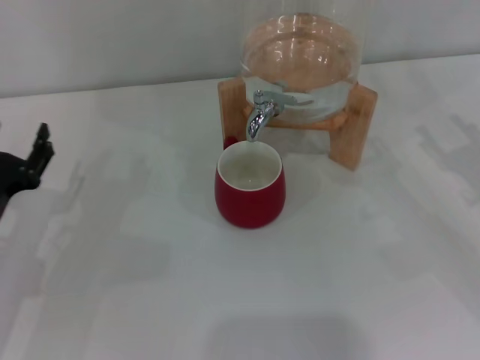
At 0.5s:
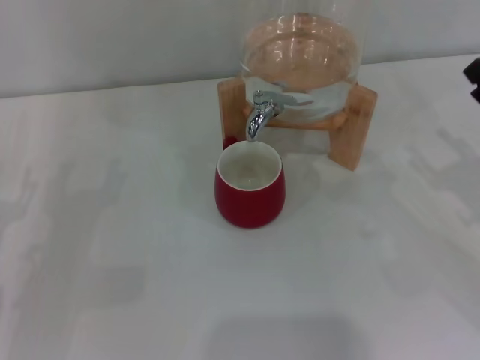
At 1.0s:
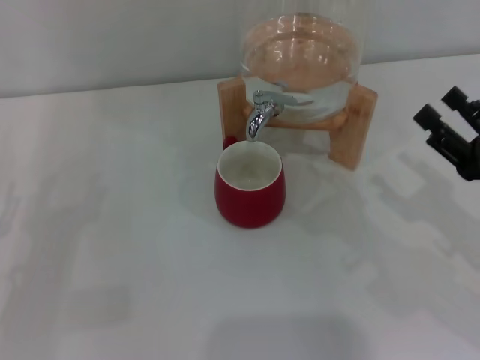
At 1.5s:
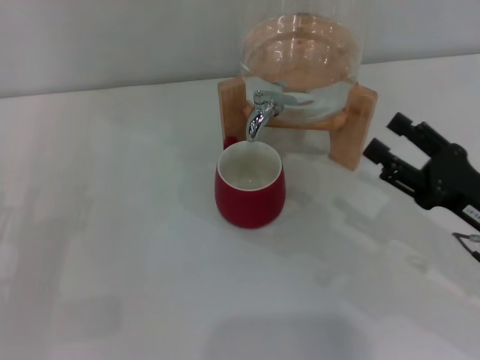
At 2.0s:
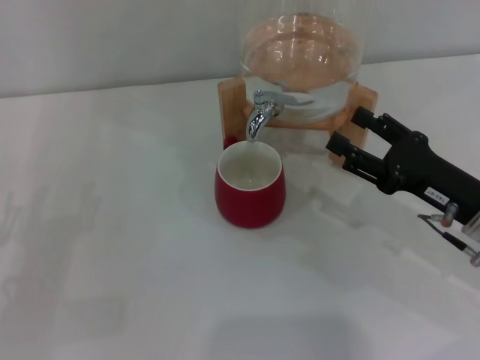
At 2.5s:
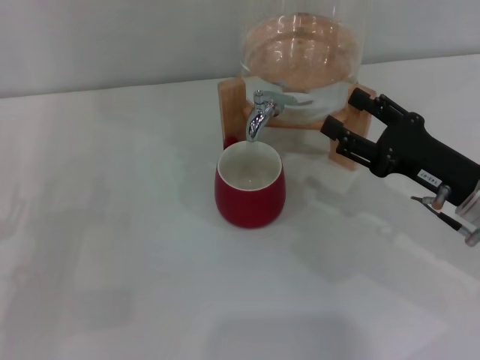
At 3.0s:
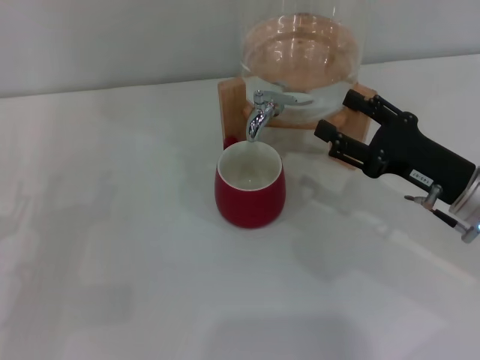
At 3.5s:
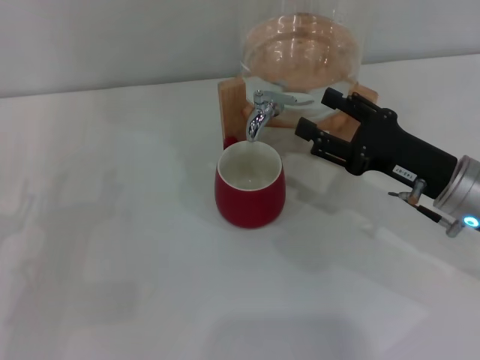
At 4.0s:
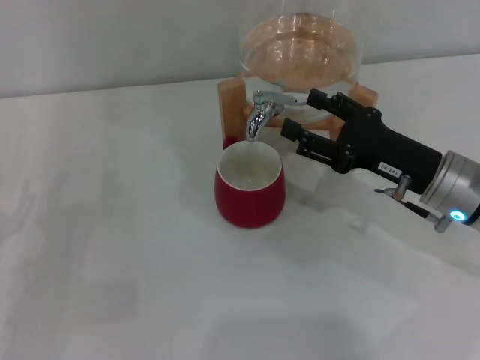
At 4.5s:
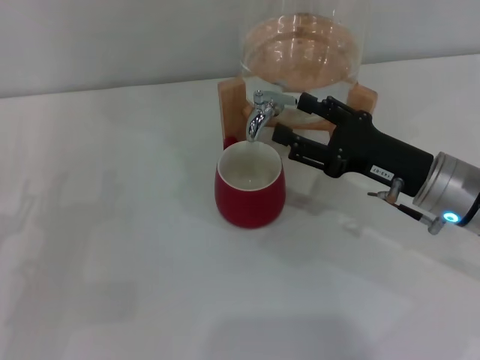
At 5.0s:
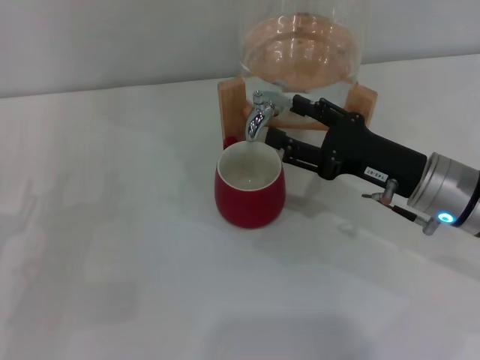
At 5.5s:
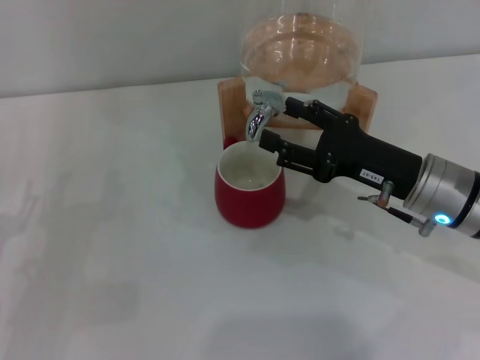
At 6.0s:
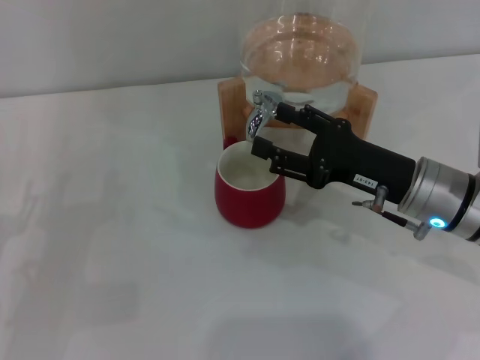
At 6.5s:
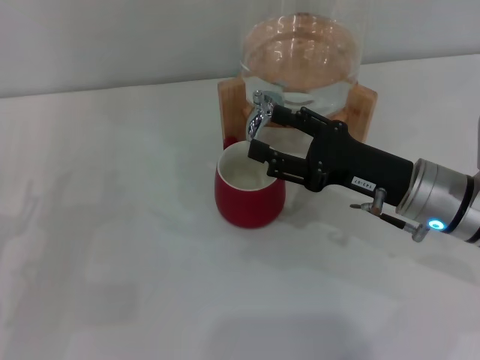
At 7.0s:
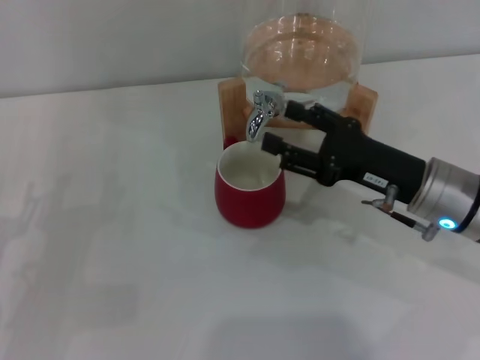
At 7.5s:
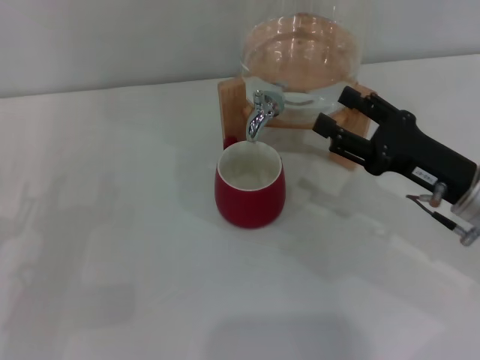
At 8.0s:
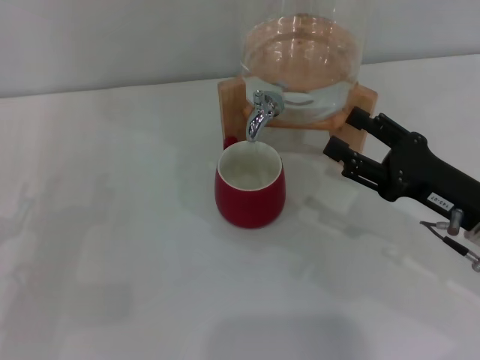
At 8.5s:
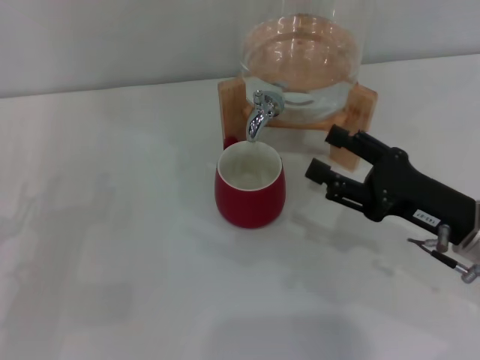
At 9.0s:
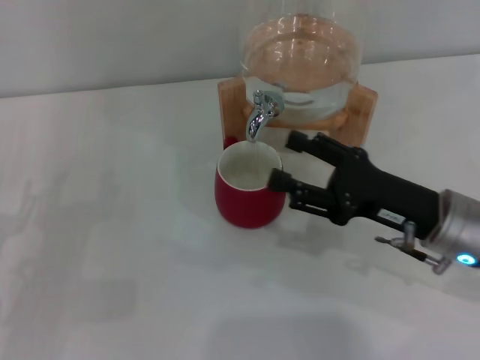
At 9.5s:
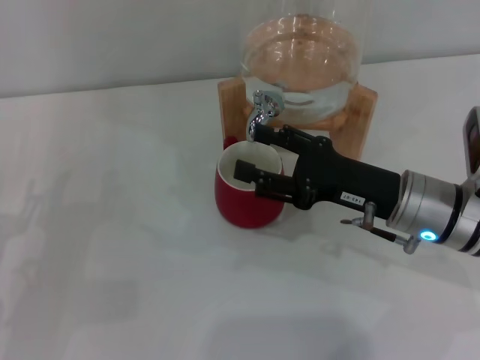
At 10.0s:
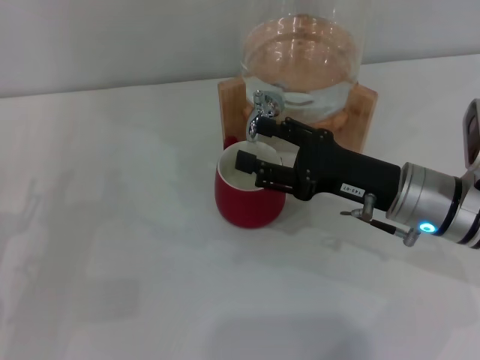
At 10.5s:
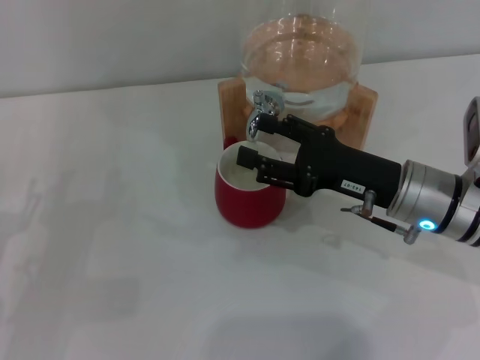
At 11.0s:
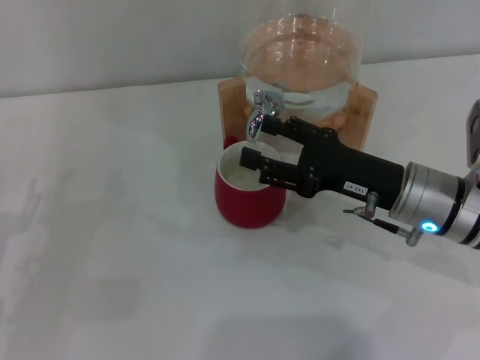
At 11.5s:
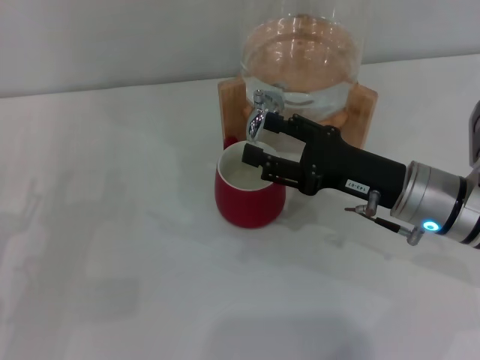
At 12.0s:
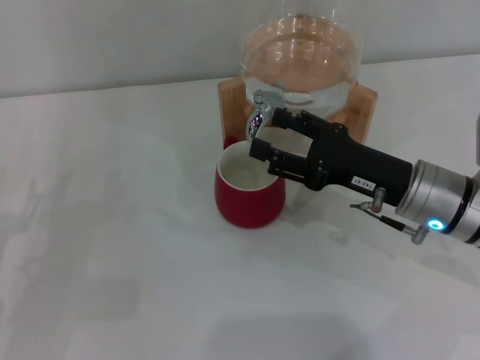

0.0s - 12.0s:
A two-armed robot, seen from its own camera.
Task of the whole recording: the left gripper pick up the red cup and place it horizontally under the faucet, the right gripper turn on the faucet to fill the cup, and then turn off the faucet.
Step, 0.0s - 6.5s: Open the dispenser valve and fill the cup with water with the right gripper.
0.0s - 2.0s: The left gripper heads backward, covering approximately 5 cm, and opens up; the right gripper heads to the left, covering about 10 cm.
2.0s - 4.0s: The right gripper moves roughly 5 cm.
4.0s - 6.0s: The grippers move only a little.
6.0s - 8.0s: The right gripper shifts by approximately 5 cm.
8.0s - 10.0s: The right gripper travels to the left by approximately 5 cm.
10.0s - 12.0s: Neither gripper changes place.

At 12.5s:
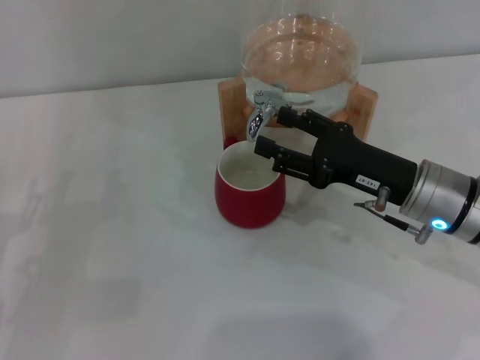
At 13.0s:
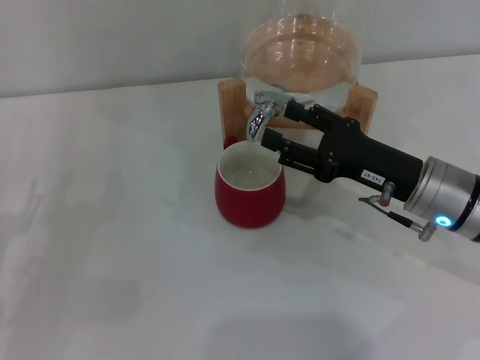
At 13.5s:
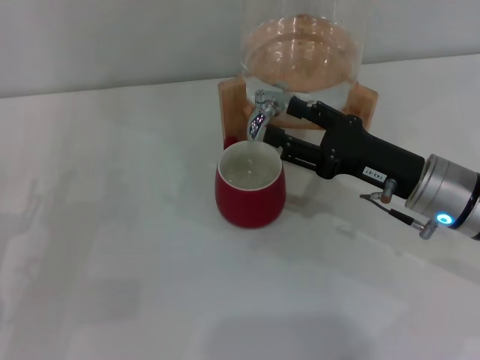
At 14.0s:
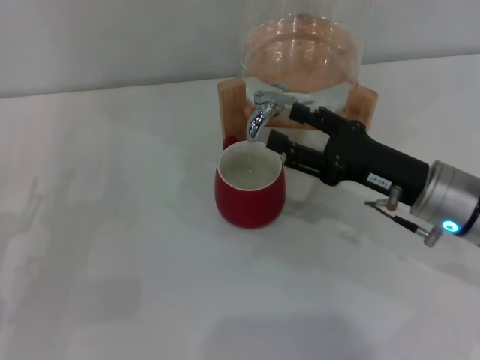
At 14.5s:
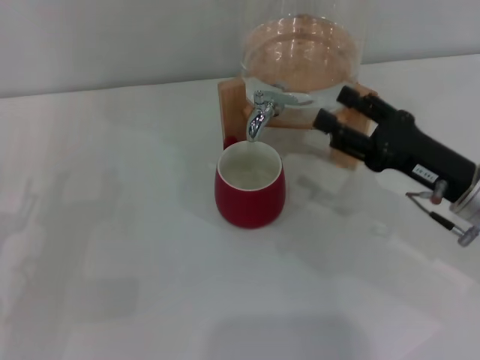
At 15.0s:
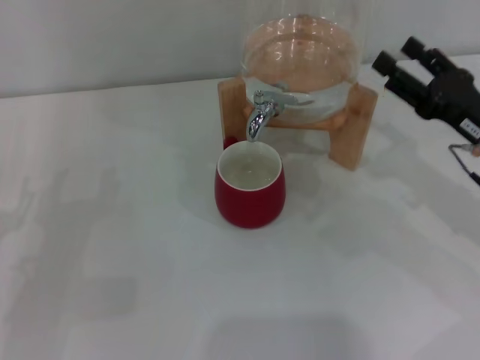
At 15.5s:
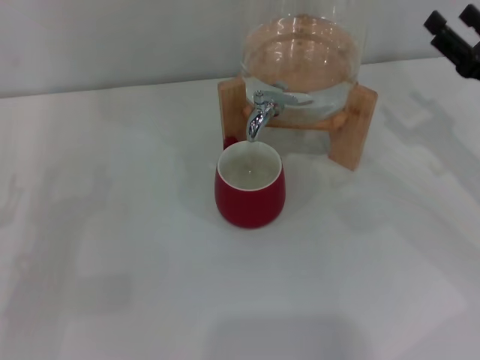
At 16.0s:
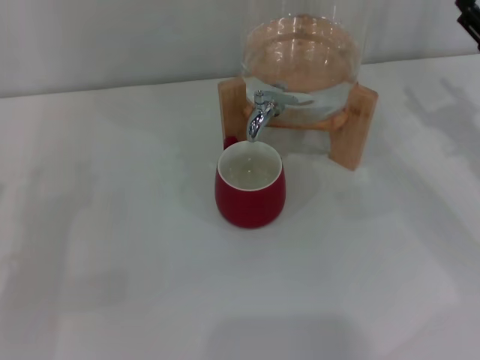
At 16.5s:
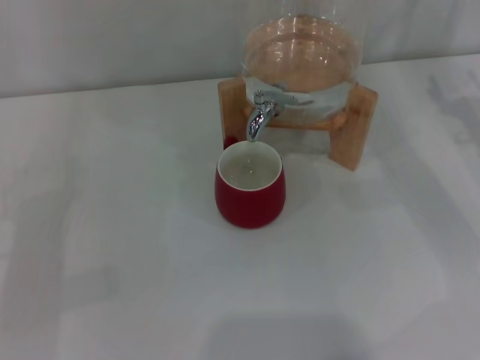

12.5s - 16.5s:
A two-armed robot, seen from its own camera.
Task of the whole recording: the left gripper pick up the red cup and place it horizontally under the faucet, the right gripper turn on the faucet to fill the cup, and then turn off the faucet.
12.5s - 14.5s: The grippers make only small movements.
14.5s - 16.5s: The right gripper heads to the right and forward, covering some 10 cm.

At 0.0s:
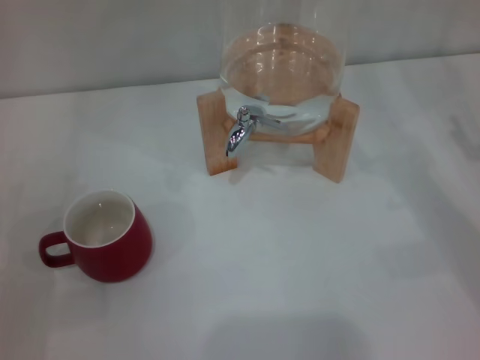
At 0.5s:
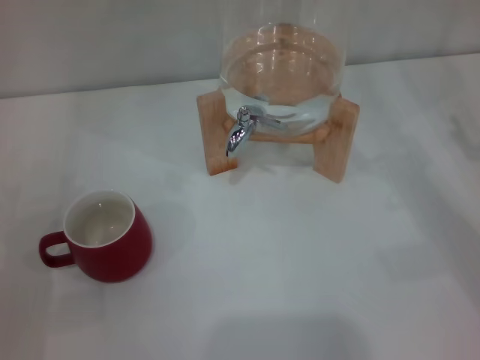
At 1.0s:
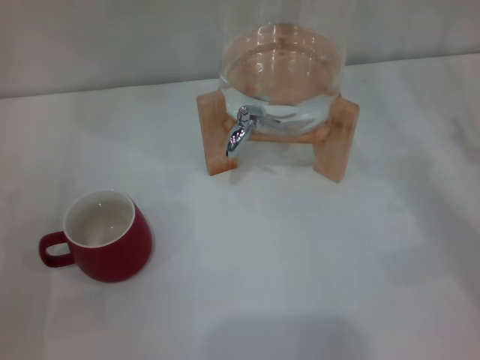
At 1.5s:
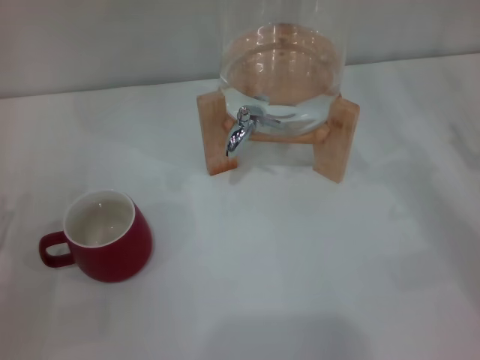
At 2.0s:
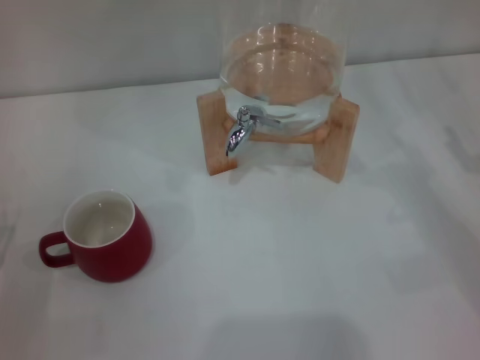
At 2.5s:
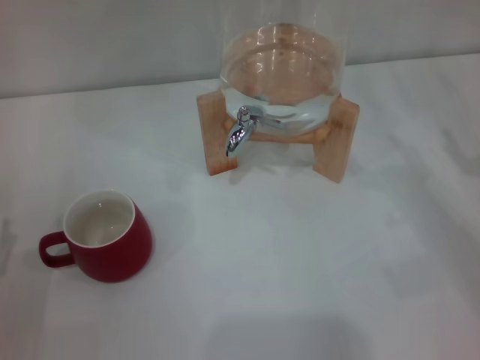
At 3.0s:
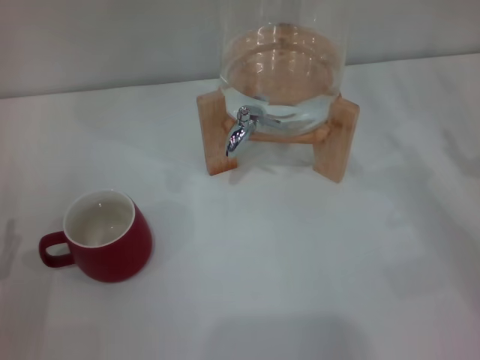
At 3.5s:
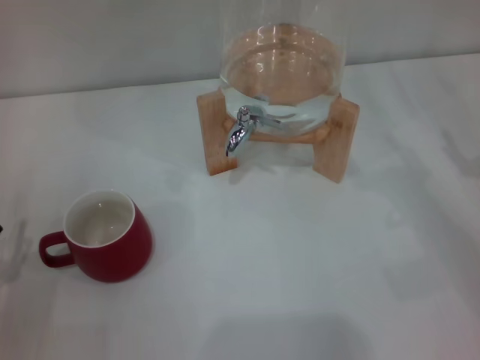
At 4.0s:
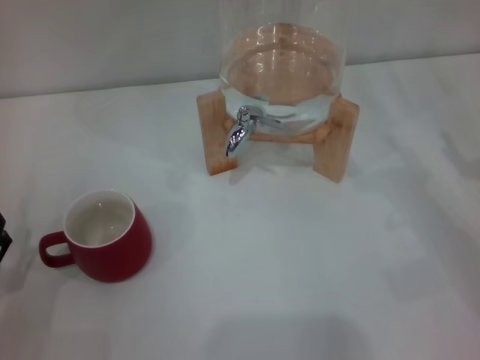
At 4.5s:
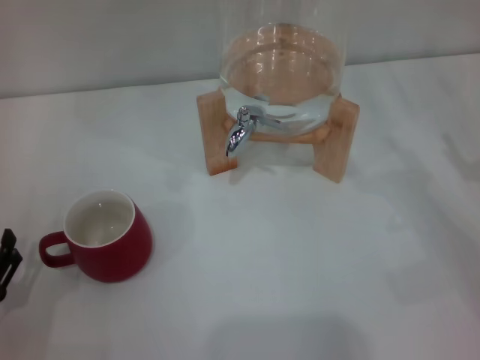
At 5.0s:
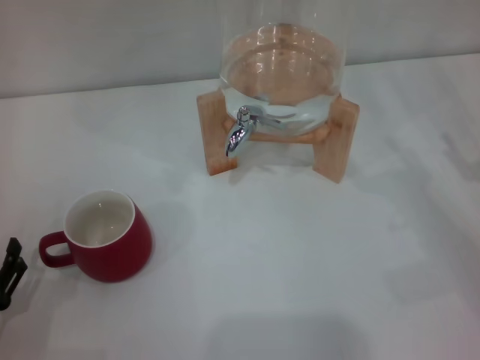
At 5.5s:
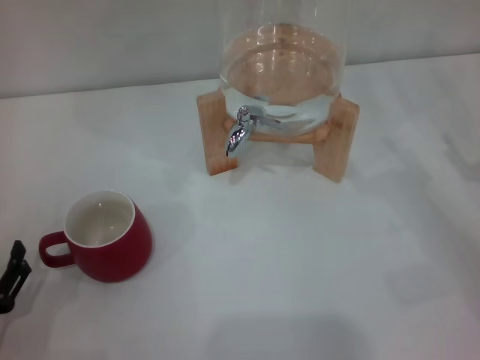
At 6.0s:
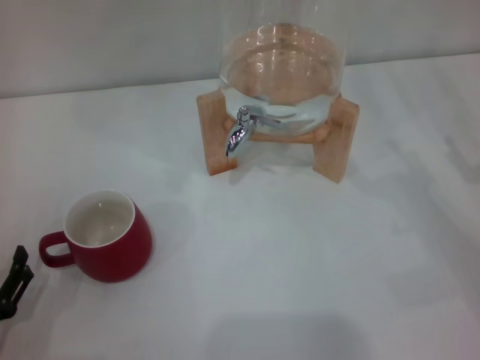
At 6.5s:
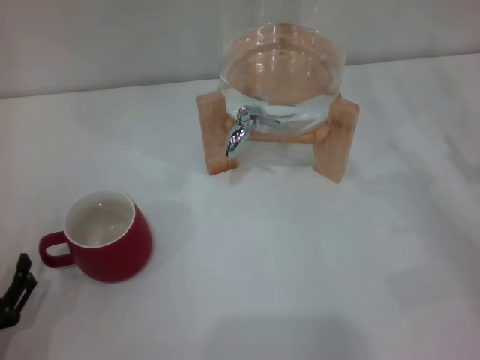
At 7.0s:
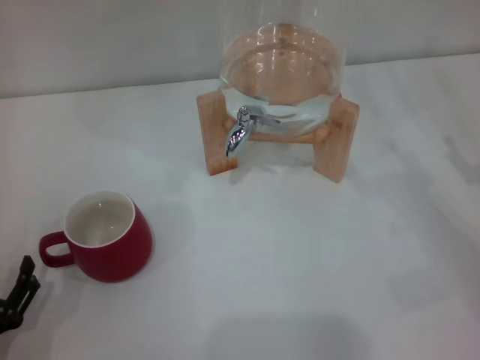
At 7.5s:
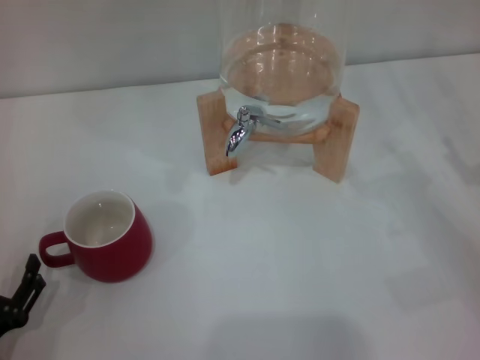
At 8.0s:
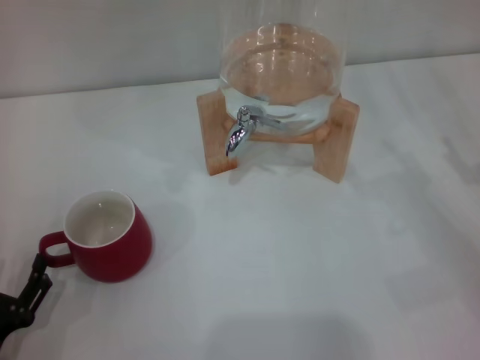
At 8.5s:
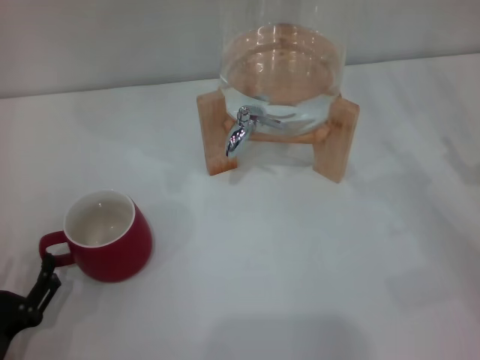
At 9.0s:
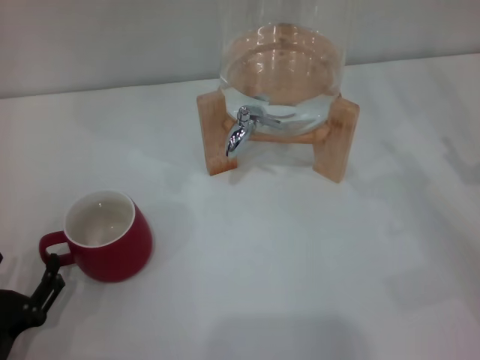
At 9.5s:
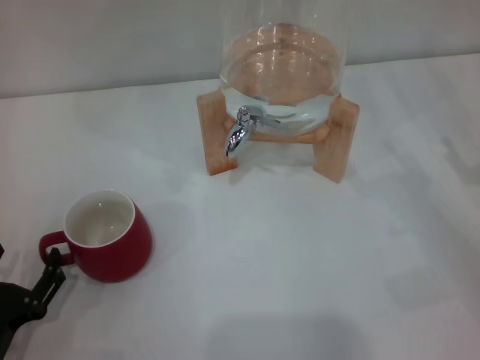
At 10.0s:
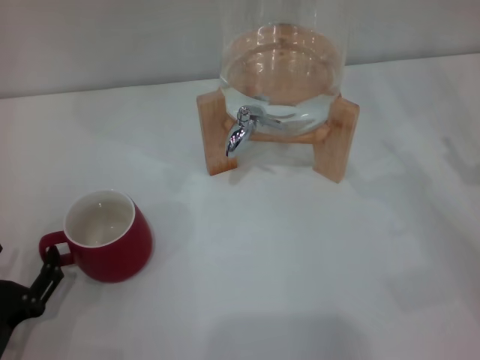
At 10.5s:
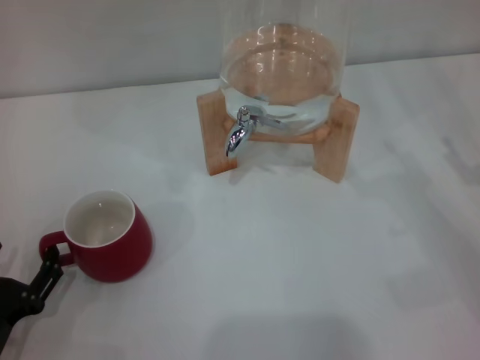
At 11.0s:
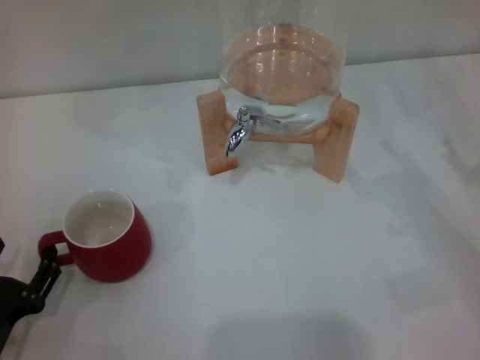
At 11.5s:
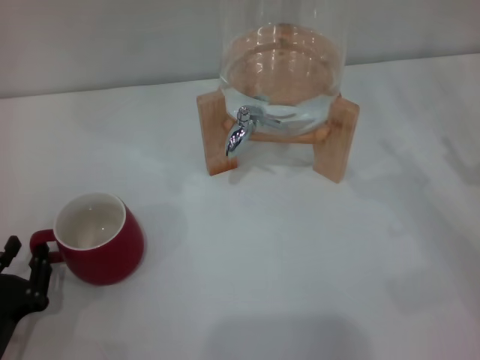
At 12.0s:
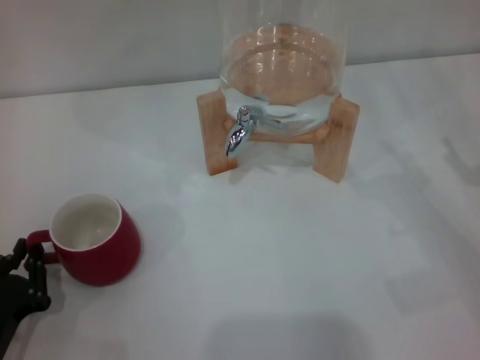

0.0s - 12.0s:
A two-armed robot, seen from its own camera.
Task of the whole recording: the left gripper pick up the red cup and place it horizontally under the faucet, the right gripper turn on the faucet to fill the cup, and then turn off the faucet.
4.0s - 8.0s: The grippers move only a little.
8.0s - 10.0s: The two grippers keep their place.
10.0s - 12.0s: The left gripper closes.
